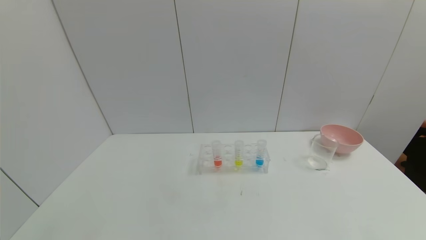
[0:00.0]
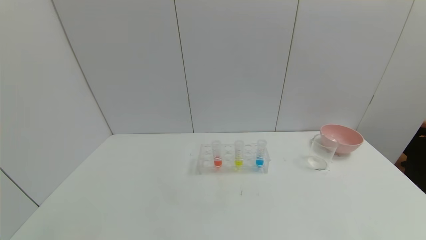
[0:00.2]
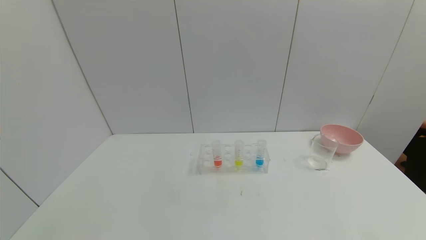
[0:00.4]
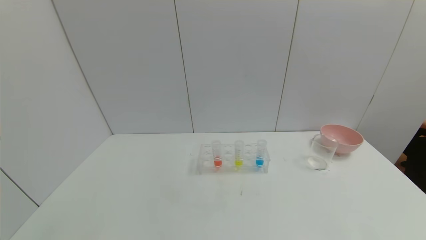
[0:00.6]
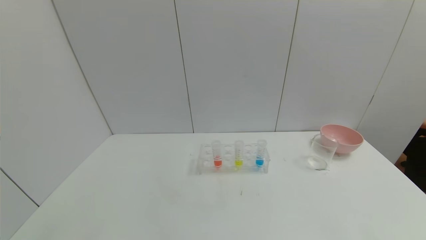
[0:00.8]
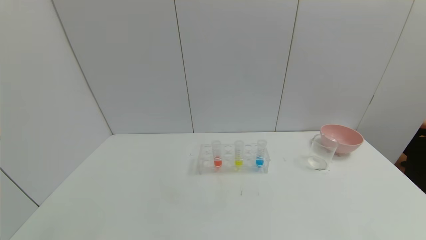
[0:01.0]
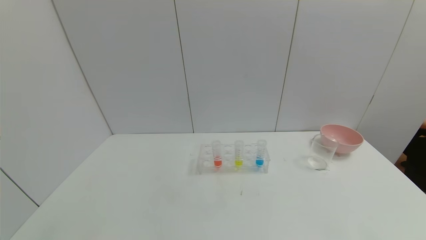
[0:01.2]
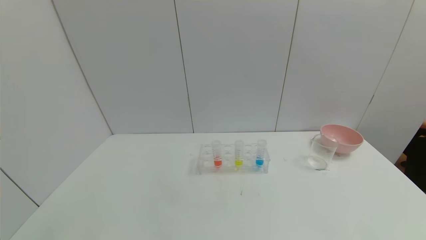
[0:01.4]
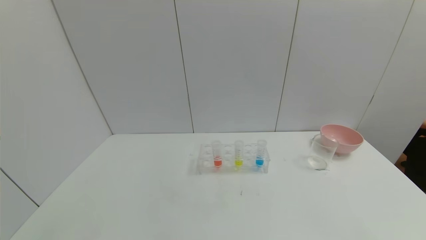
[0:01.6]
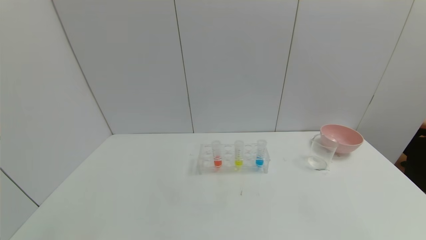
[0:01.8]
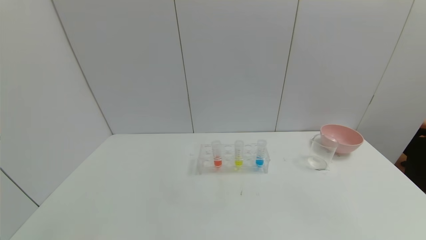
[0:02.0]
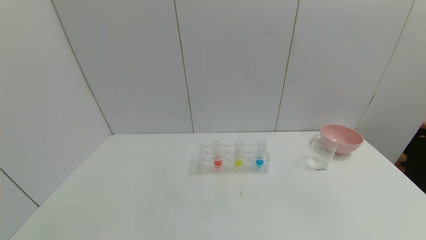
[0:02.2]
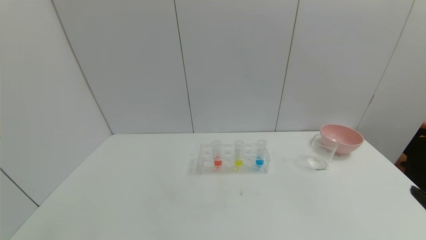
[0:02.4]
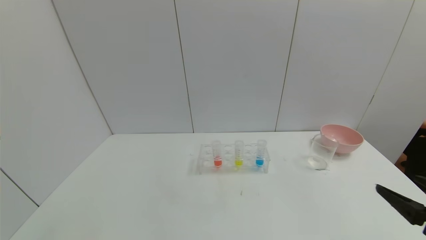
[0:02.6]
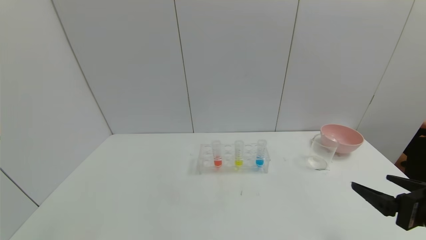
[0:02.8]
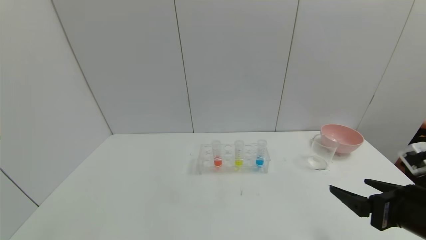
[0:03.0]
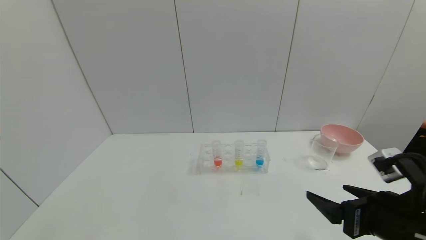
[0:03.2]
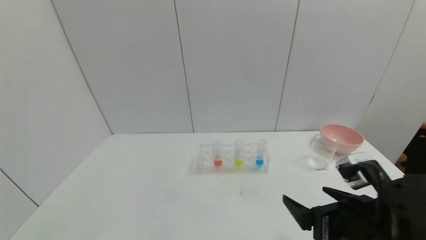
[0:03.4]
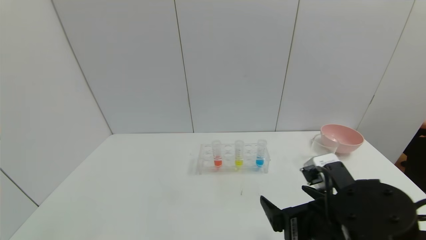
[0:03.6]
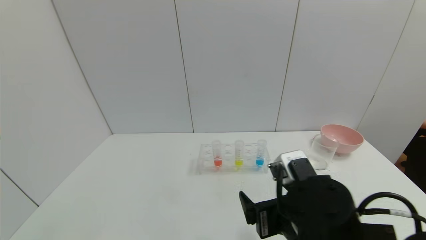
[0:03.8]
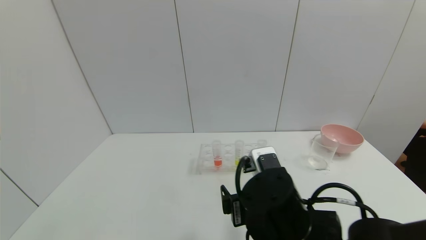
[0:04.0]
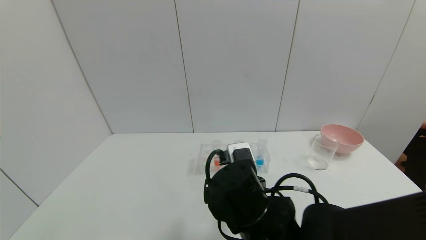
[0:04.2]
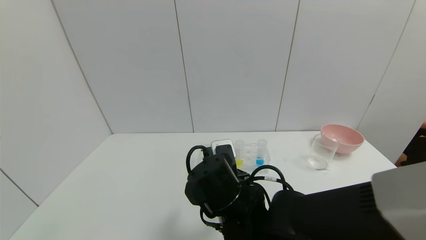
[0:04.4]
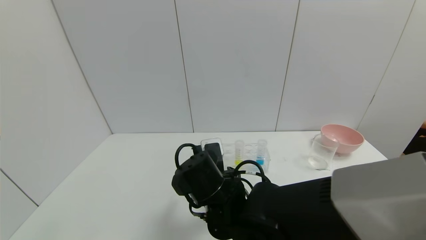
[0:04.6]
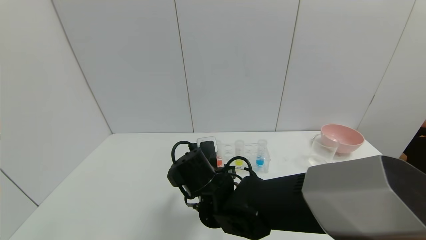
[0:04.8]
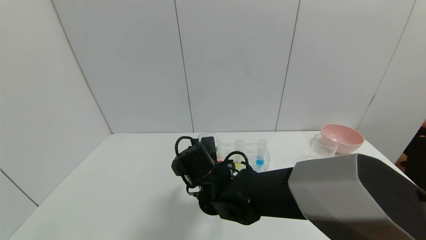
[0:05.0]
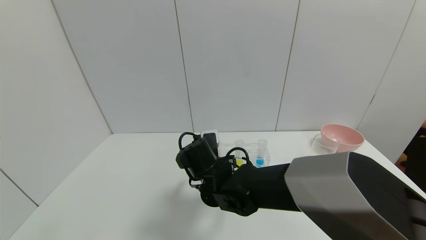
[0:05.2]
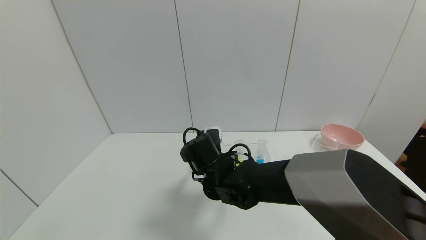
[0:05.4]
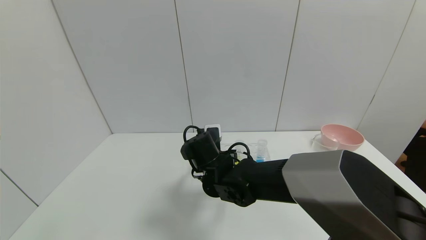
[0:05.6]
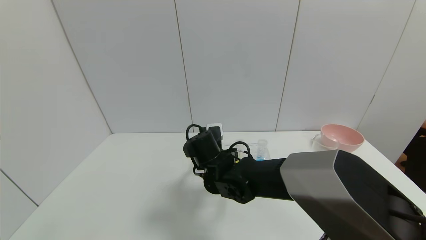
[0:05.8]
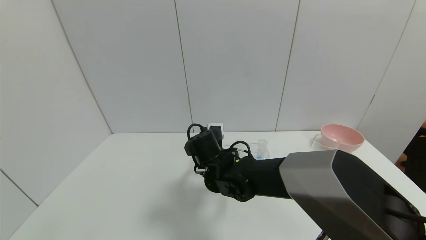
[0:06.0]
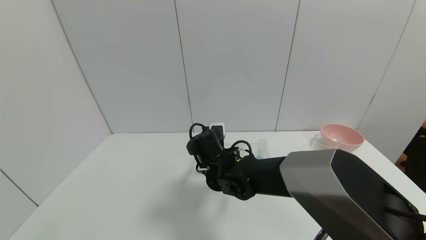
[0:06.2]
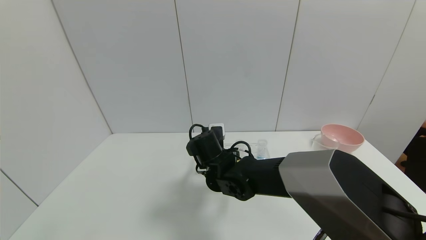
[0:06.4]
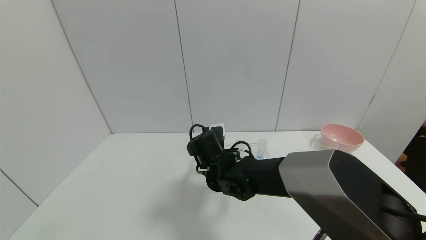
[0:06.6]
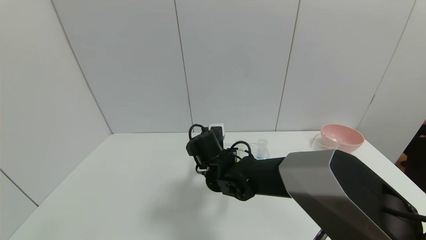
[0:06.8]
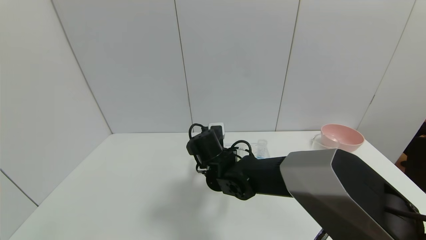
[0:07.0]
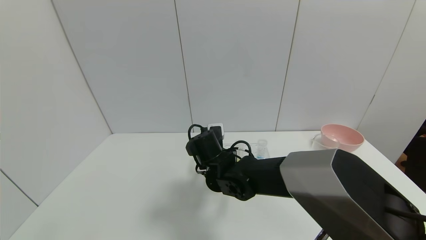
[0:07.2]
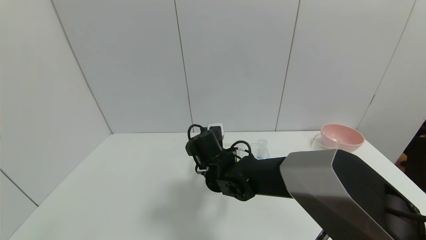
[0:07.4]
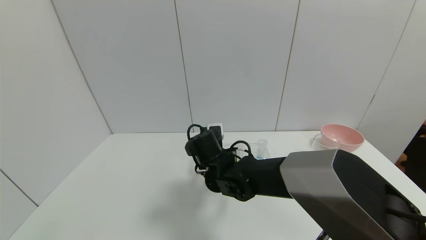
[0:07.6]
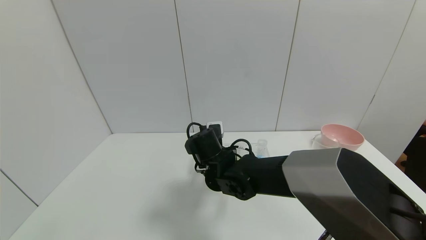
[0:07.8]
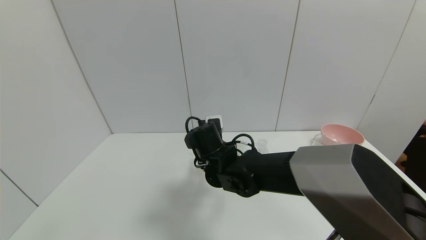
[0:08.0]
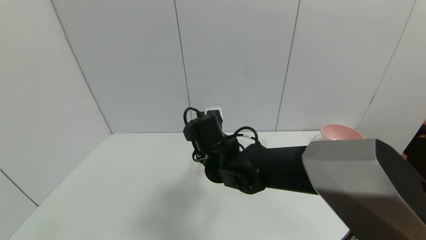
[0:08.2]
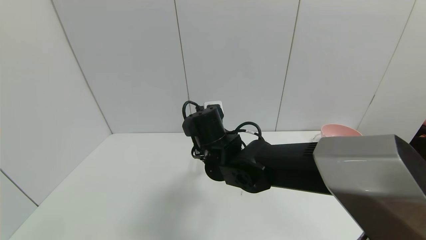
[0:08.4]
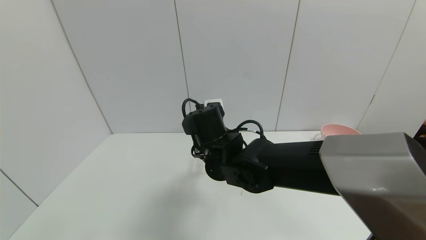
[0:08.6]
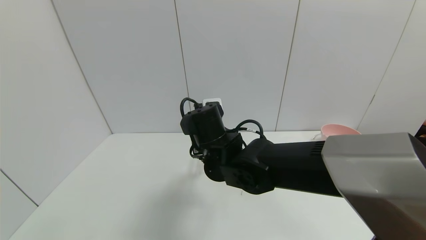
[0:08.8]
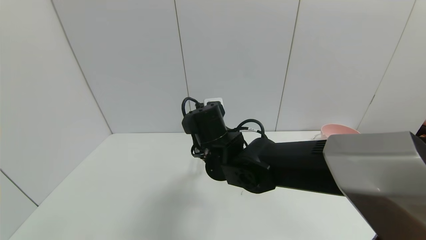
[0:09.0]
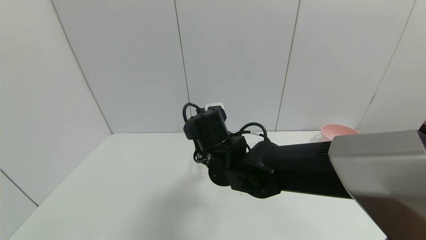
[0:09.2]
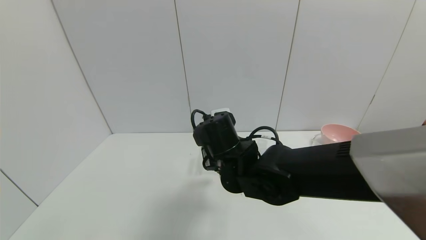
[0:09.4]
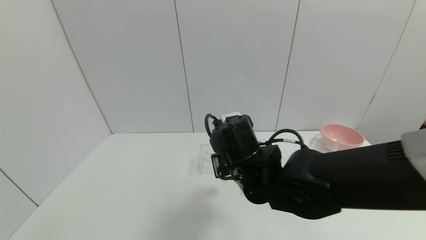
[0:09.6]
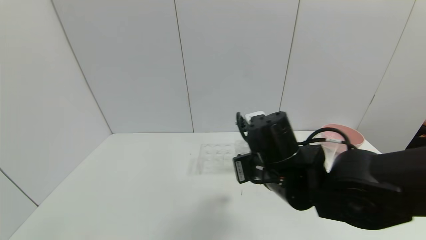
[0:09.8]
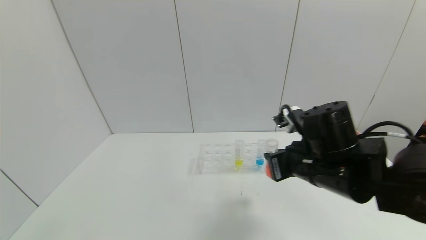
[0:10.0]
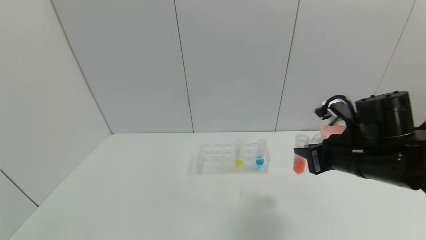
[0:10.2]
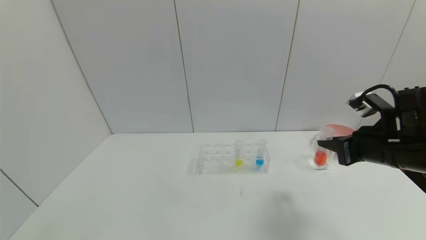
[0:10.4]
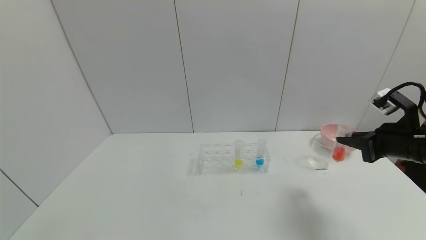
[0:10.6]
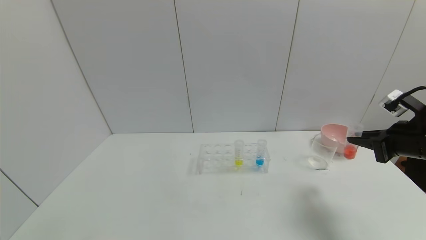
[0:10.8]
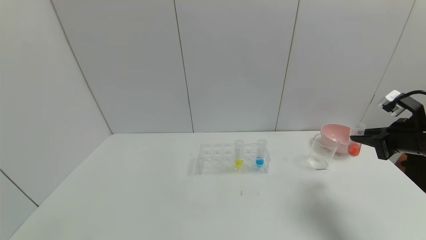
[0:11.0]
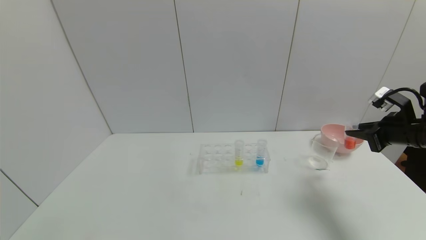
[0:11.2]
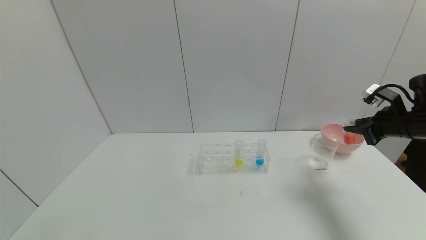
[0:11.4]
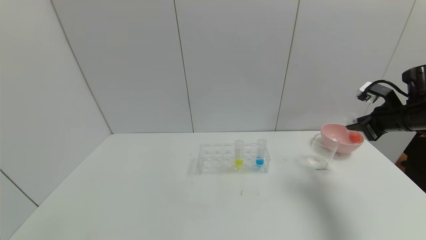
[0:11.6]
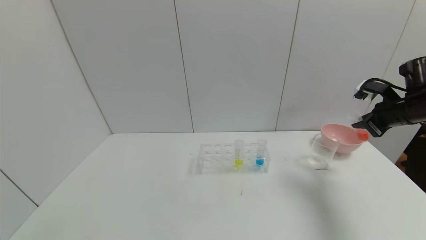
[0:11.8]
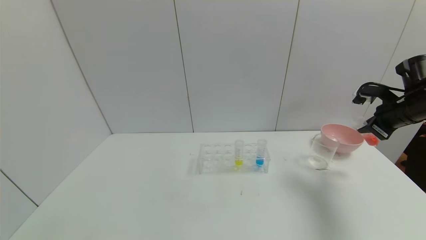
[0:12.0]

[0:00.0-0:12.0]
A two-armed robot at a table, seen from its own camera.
Task of the whole recording: pick up the test tube with yellow pigment and the test tube with red pigment by grippers and pour them into the beaker.
Step, 0:00.0 to 0:07.0: Grasp the red reagent with the right gripper.
0:01.6 to 0:03.0: The right gripper goes roughly 20 cm forward.
0:03.0 to 0:04.4: The right gripper is displaced to the left by approximately 30 cm.
0:04.4 to 0:06.0: The right gripper is displaced forward by approximately 10 cm.
0:06.0 to 0:07.6: The right gripper closes its fingers.
0:07.6 to 0:09.0: The right gripper travels upward by approximately 5 cm.
0:09.0 to 0:10.4: The right gripper travels to the right by some 30 cm.
0:10.4 to 0:12.0: The right gripper is displaced to the right and forward by approximately 15 cm.

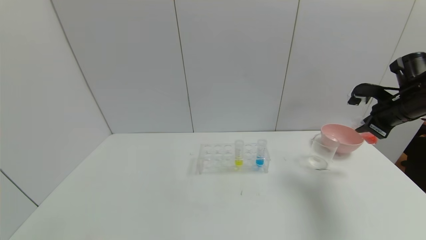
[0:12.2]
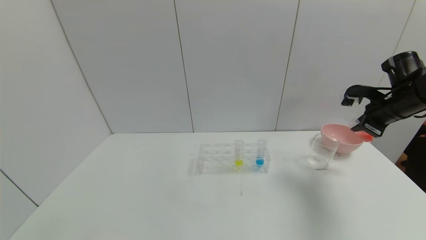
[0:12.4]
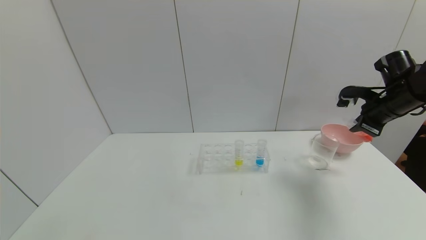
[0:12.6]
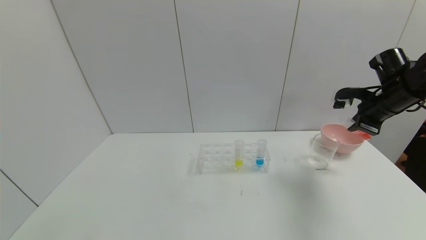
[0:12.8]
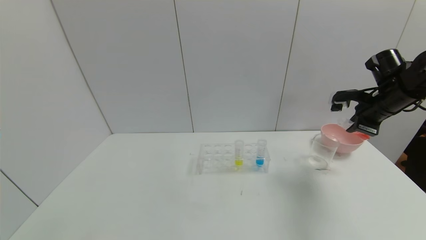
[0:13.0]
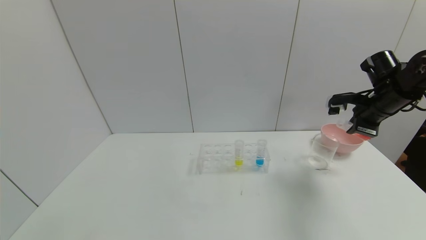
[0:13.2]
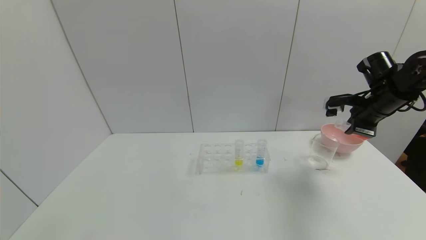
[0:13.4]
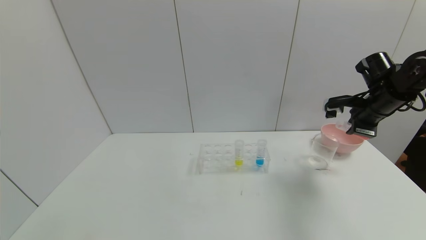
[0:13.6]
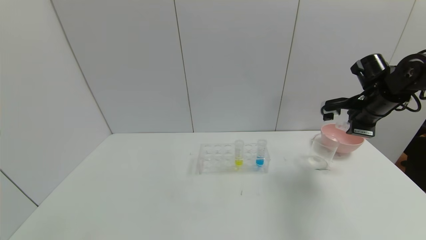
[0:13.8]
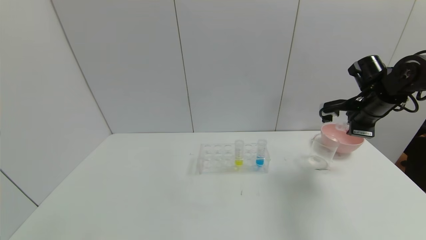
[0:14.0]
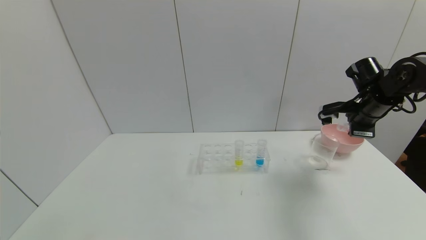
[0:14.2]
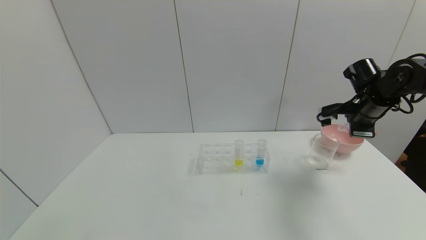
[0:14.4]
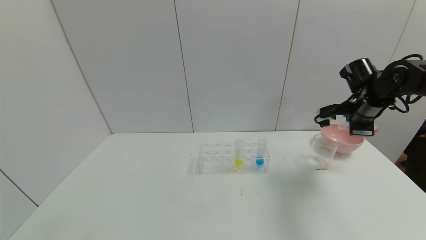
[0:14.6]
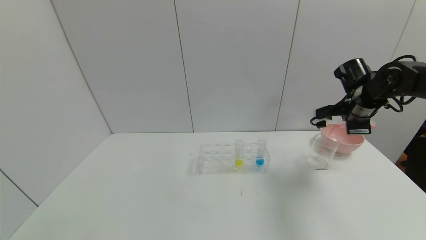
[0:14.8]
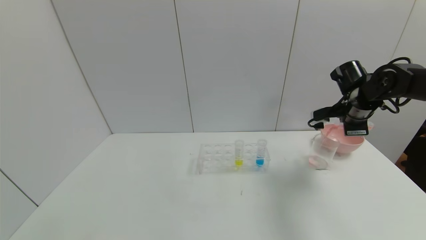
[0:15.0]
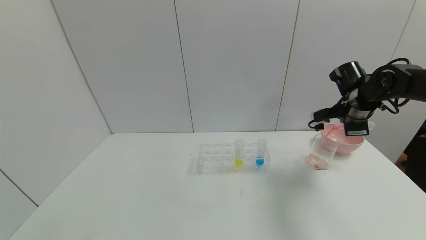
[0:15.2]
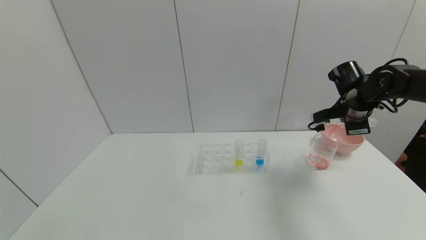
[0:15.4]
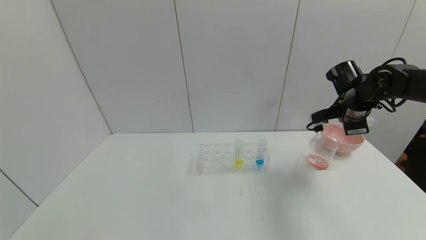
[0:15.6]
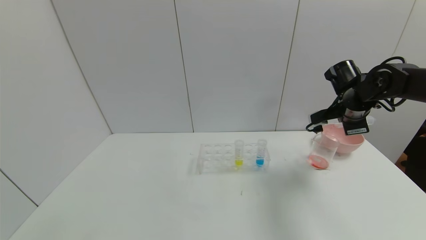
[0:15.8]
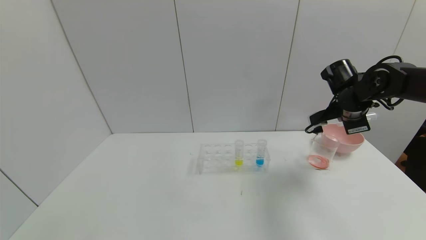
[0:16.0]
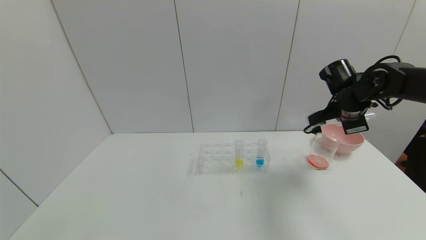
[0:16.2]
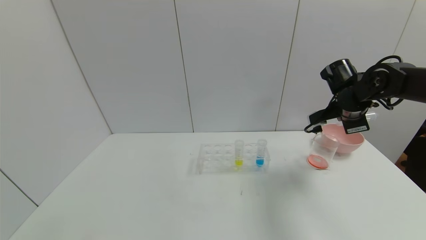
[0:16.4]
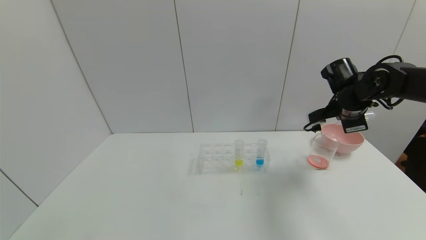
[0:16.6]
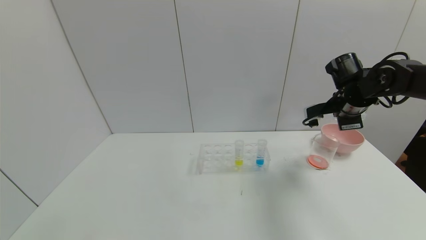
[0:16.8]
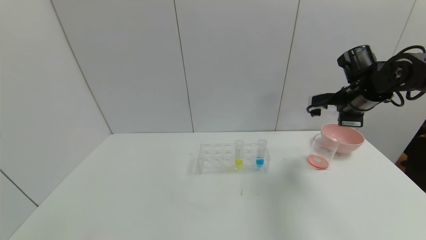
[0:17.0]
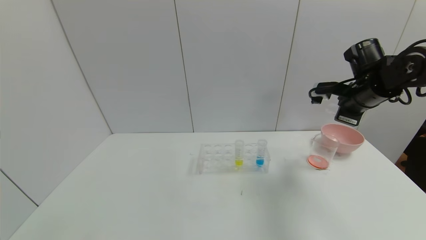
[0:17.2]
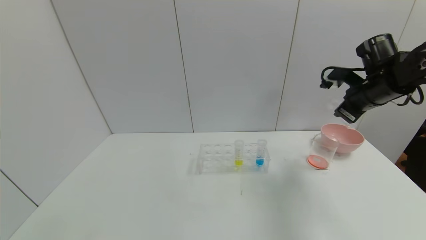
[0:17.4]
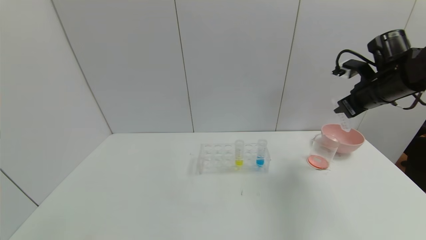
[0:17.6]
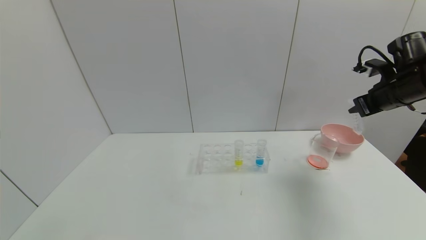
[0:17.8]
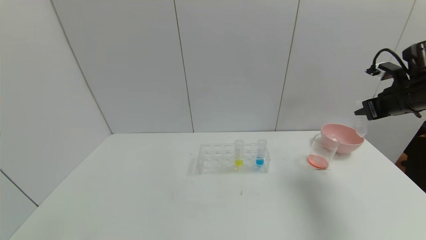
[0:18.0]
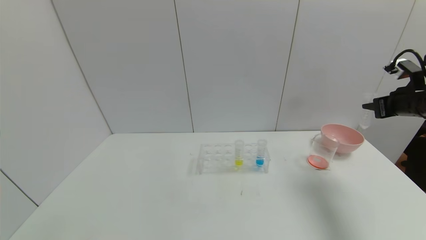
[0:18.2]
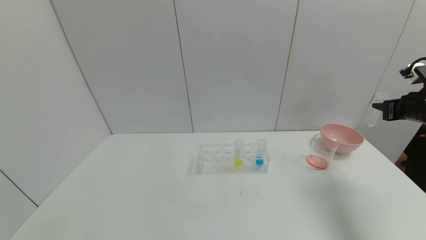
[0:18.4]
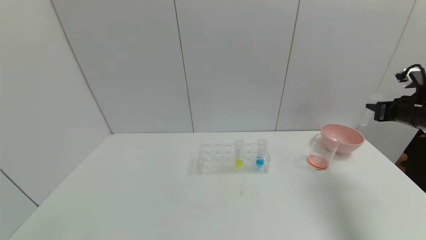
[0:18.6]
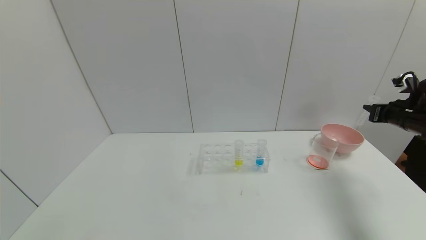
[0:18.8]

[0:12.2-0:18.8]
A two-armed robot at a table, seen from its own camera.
Task of the whole recording: pick up the test tube with yellow pigment and the test tube with red pigment by grippers and pour them into the beaker.
Step, 0:12.2 to 0:16.2: Pour the red reagent into the graduated cylinder with the right gripper.
0:12.2 to 0:13.8: The right gripper travels to the left by about 5 cm.
0:17.2 to 0:18.8: The right gripper heads to the right and downward, covering roughly 15 cm.
